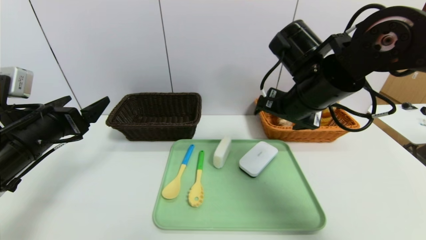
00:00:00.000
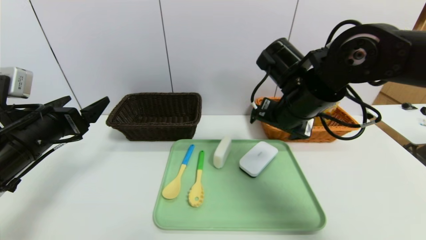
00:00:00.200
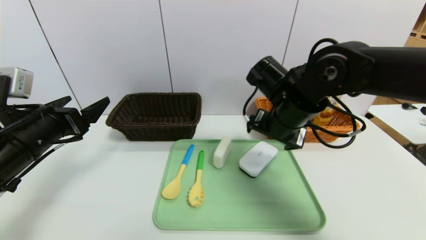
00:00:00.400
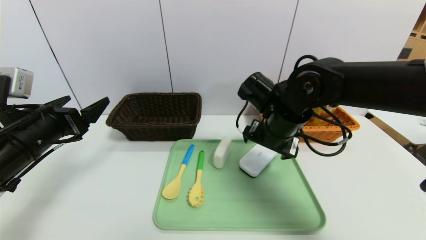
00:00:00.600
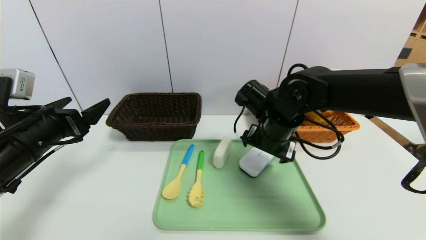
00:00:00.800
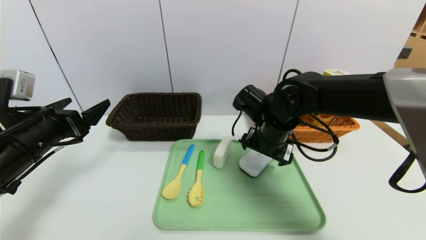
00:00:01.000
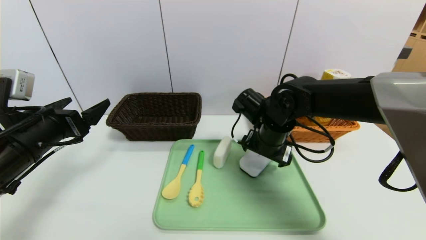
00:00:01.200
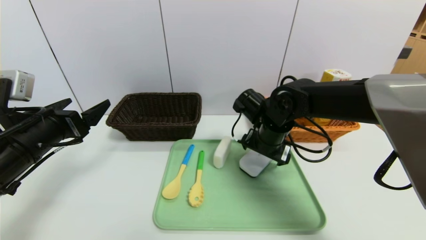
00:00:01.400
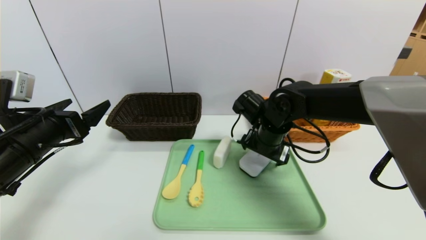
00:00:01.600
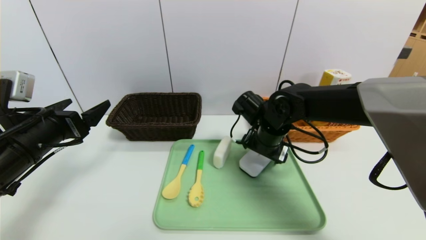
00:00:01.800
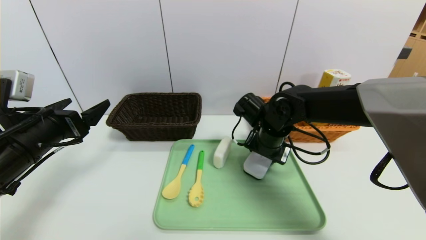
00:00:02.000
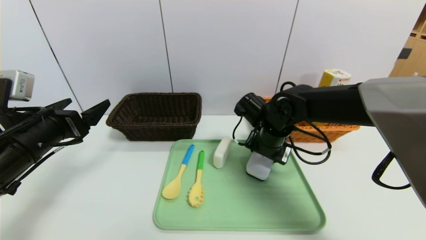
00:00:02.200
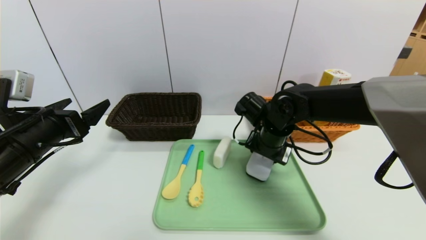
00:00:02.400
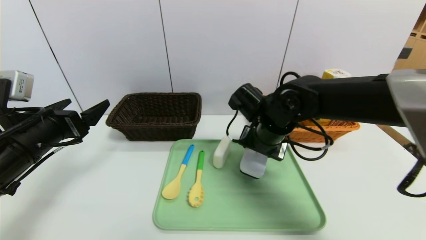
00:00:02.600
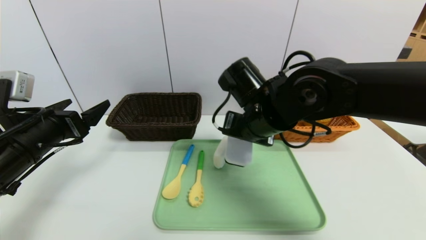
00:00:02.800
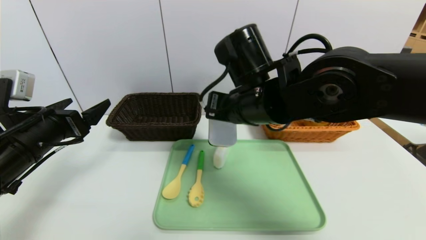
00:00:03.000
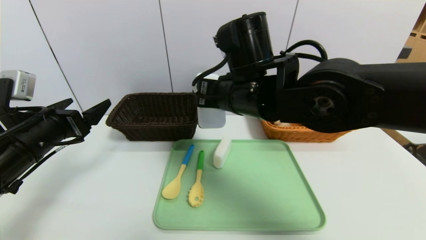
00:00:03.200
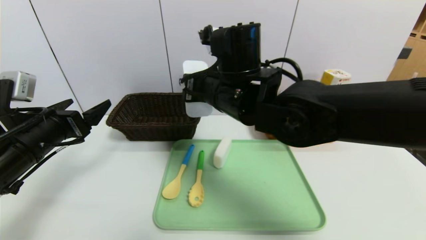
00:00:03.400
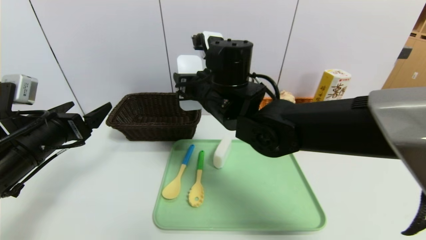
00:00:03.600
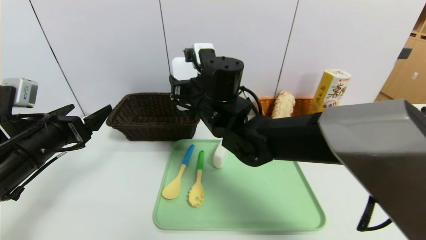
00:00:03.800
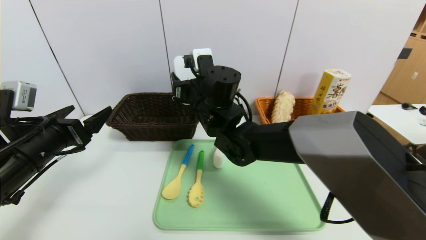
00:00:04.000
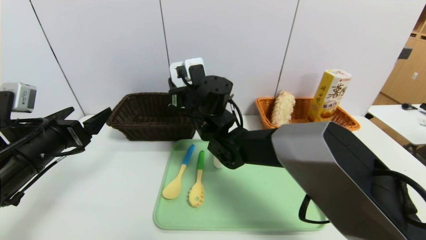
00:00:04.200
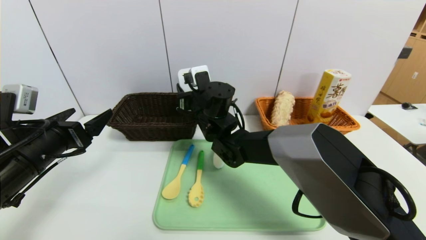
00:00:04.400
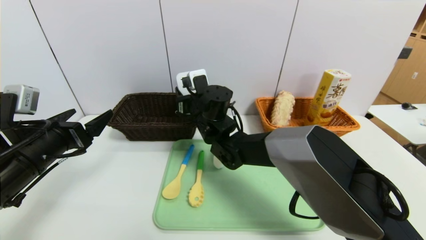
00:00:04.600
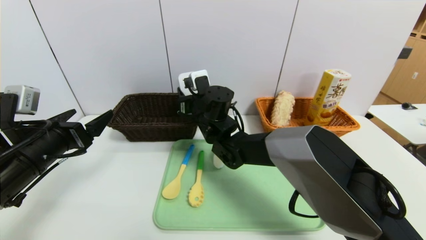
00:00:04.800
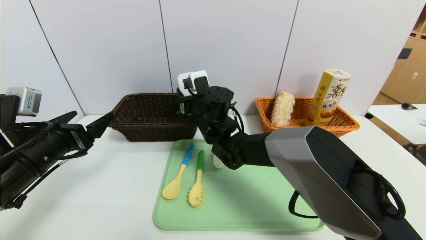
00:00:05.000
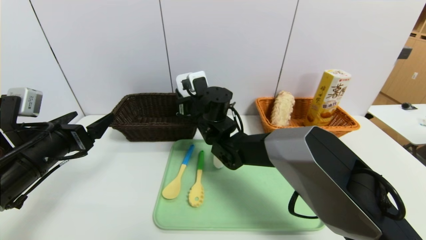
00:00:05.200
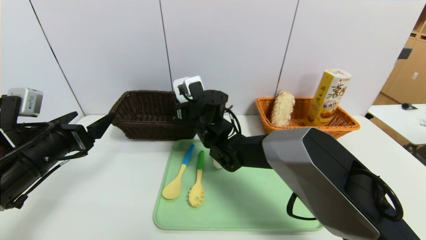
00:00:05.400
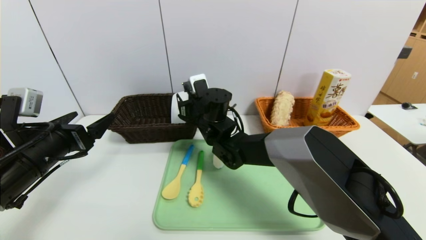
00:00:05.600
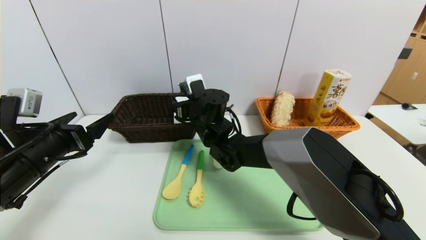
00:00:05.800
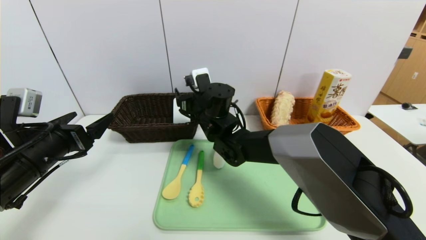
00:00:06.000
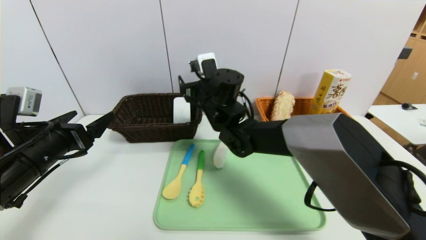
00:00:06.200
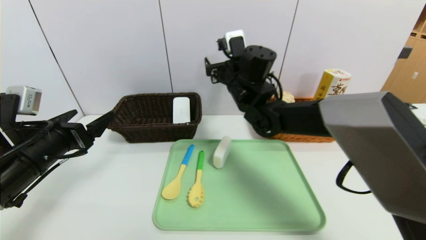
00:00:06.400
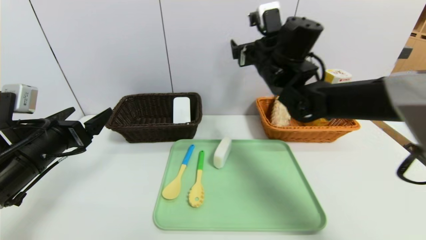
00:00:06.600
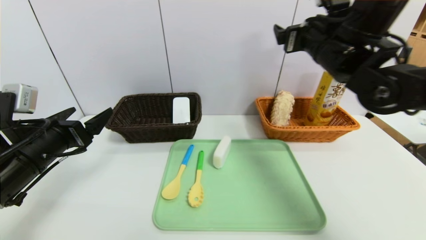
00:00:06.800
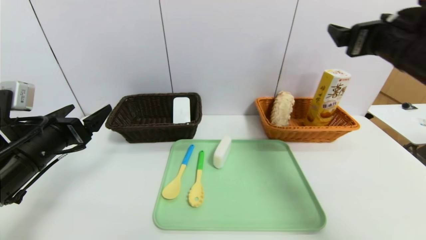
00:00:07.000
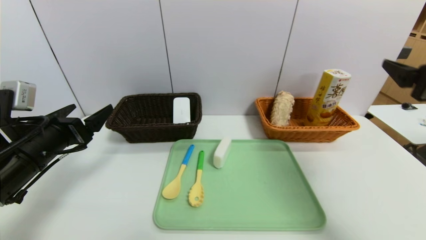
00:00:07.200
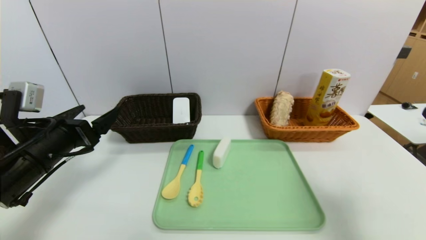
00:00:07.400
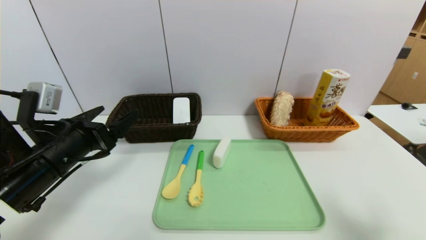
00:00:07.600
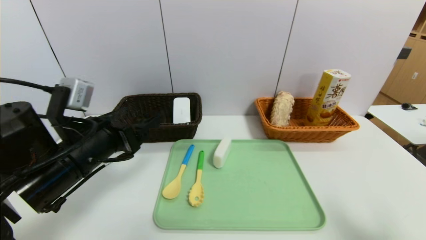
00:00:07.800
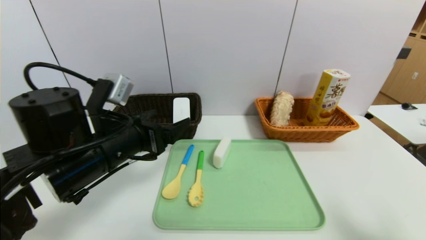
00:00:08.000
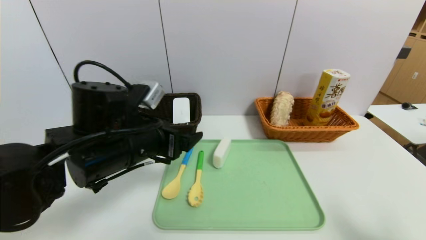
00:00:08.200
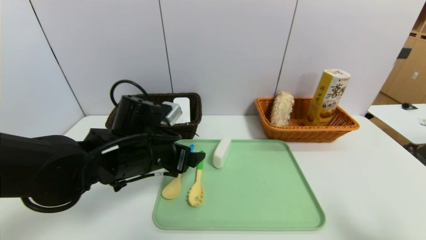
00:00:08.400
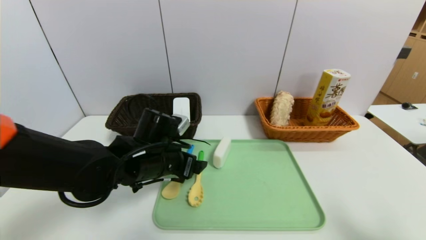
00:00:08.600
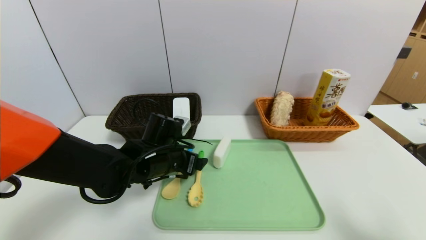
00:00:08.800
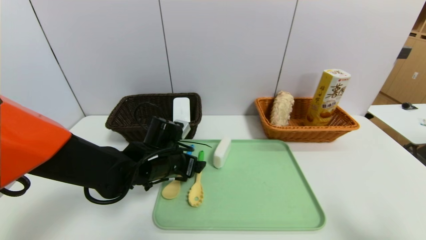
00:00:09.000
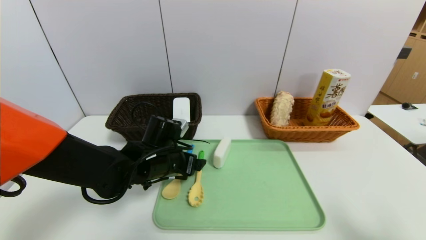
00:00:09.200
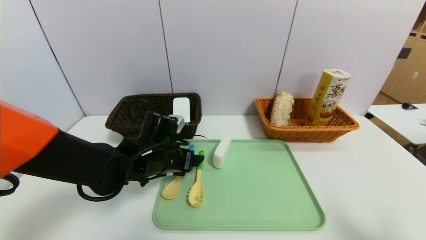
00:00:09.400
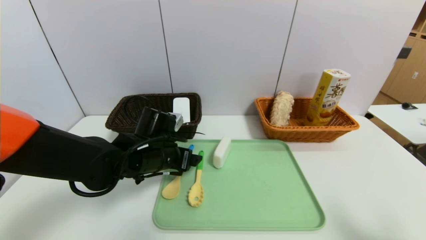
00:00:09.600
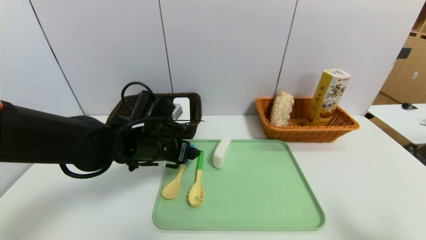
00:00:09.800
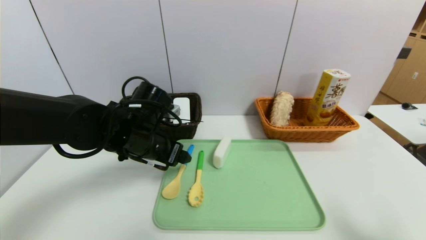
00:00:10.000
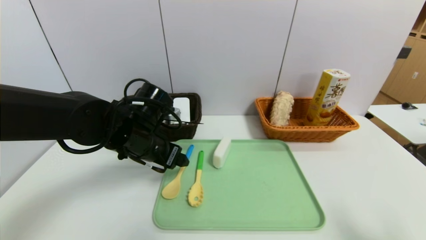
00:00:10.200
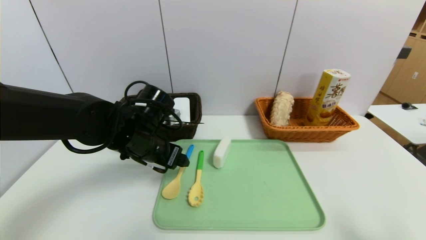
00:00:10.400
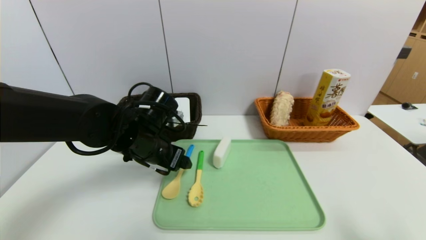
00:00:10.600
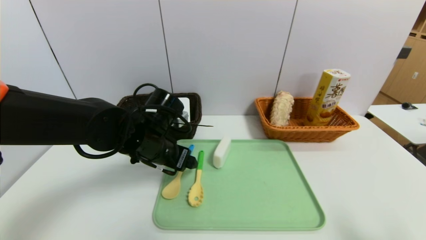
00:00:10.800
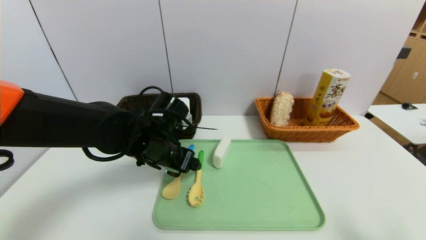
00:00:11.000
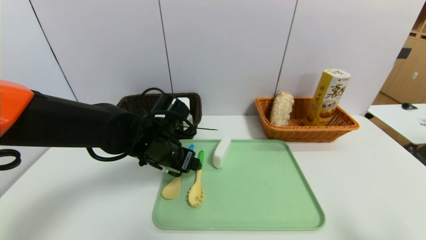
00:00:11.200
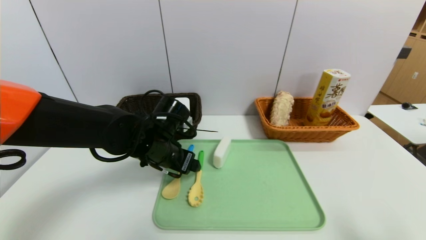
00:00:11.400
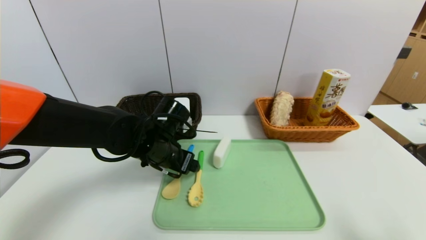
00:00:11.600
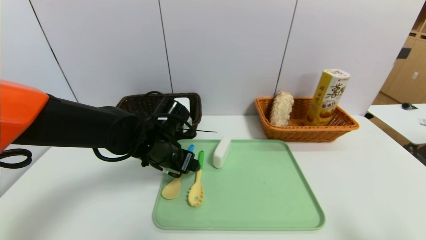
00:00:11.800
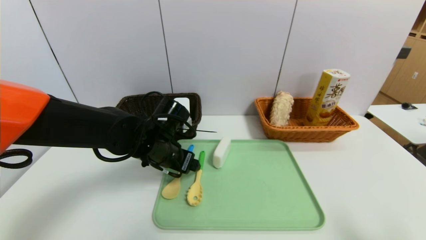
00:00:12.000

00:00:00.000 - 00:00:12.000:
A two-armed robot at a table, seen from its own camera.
Task of the whole recording: place the food in the right basket with the right gripper, and place the non food items in the left basket with the left gripper.
00:00:00.000 - 00:00:01.600: The right gripper shifts about 15 cm downward and forward.
00:00:01.600 - 00:00:03.000: The right gripper moves upward, backward and to the left, some 15 cm, and closes.
00:00:03.000 - 00:00:04.400: The right gripper moves forward, downward and to the left, some 15 cm.
00:00:04.400 - 00:00:06.000: There are only small adjustments of the grippers.
00:00:06.000 - 00:00:07.600: The left gripper heads to the right, covering roughly 5 cm; the right gripper travels to the right and backward by roughly 50 cm.
00:00:07.600 - 00:00:09.000: The left gripper travels to the right, forward and downward by some 15 cm.
00:00:09.000 - 00:00:10.400: The left gripper heads upward, covering approximately 5 cm.
00:00:10.400 - 00:00:12.000: The grippers move only a little.

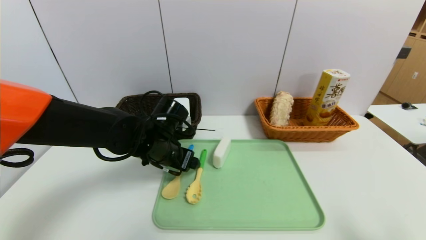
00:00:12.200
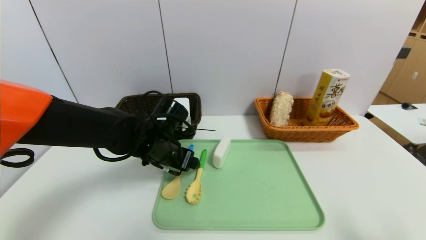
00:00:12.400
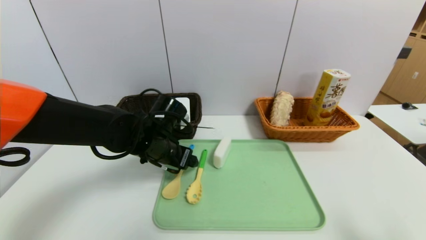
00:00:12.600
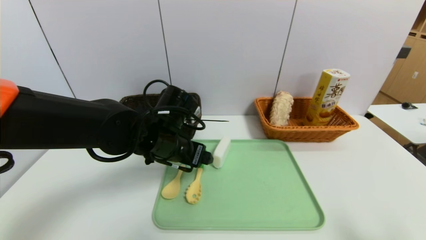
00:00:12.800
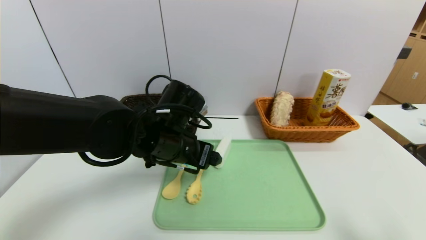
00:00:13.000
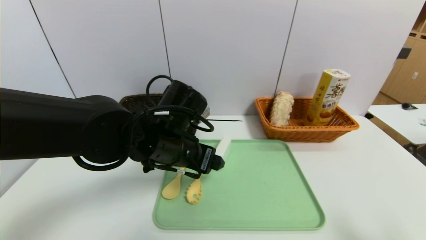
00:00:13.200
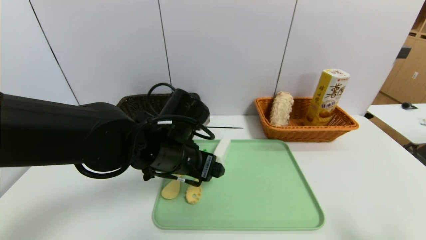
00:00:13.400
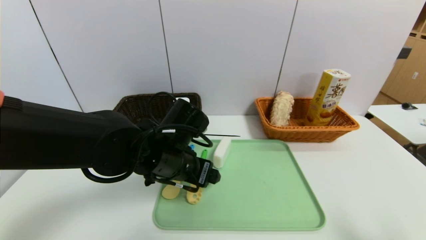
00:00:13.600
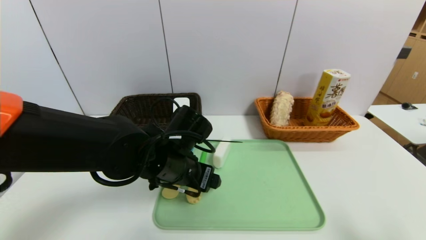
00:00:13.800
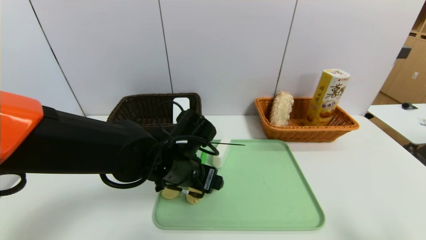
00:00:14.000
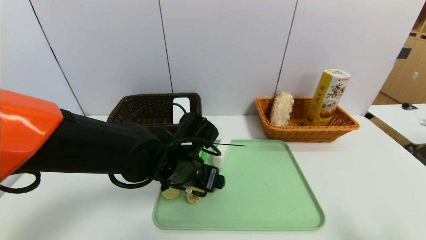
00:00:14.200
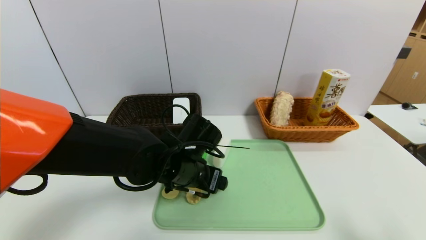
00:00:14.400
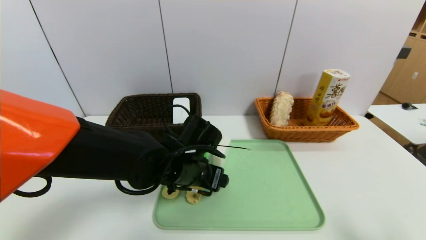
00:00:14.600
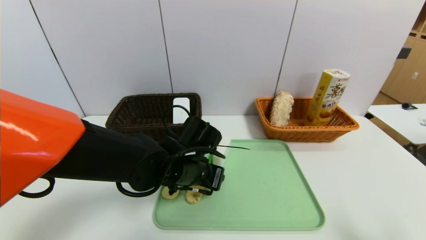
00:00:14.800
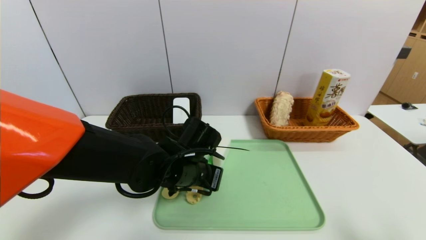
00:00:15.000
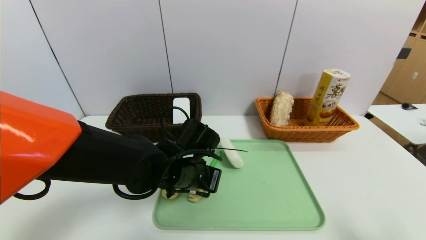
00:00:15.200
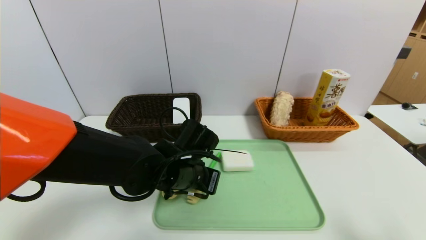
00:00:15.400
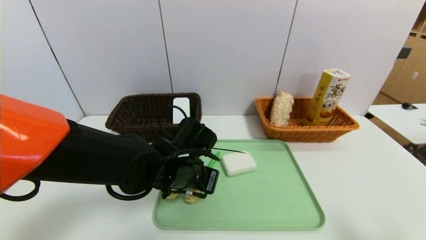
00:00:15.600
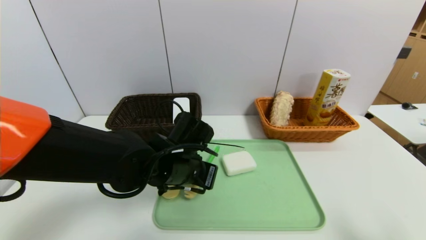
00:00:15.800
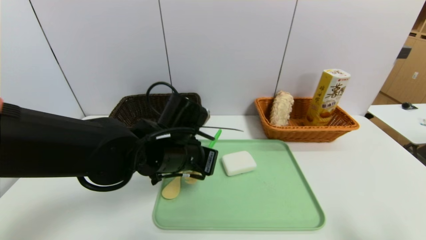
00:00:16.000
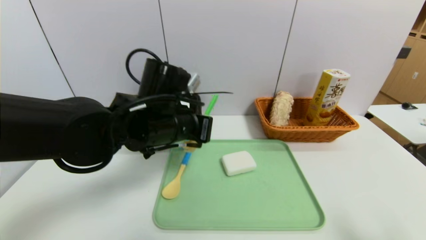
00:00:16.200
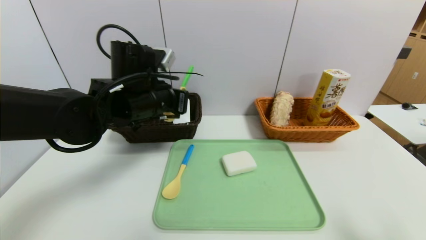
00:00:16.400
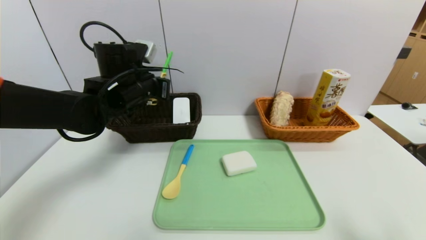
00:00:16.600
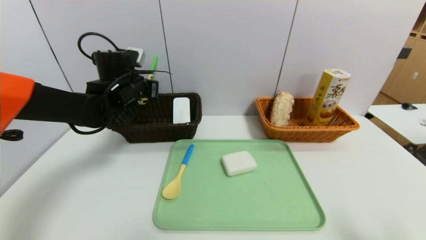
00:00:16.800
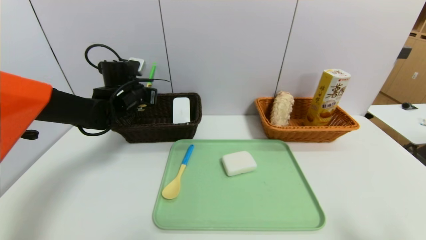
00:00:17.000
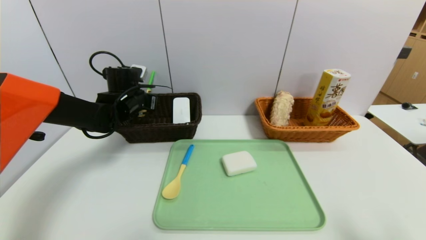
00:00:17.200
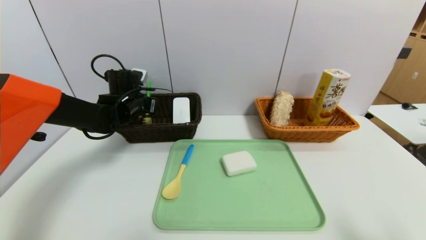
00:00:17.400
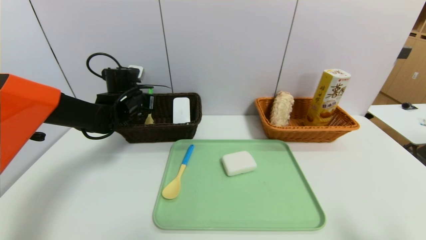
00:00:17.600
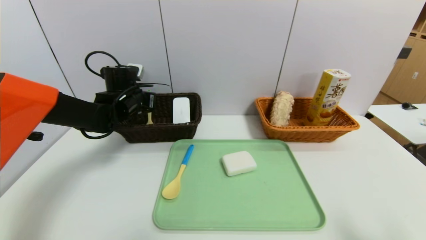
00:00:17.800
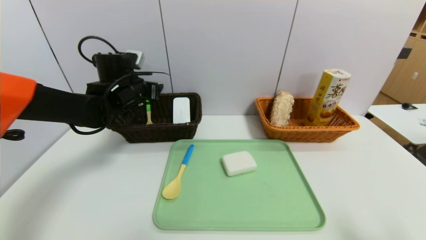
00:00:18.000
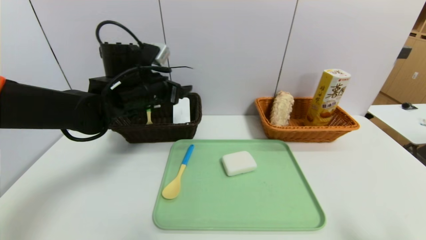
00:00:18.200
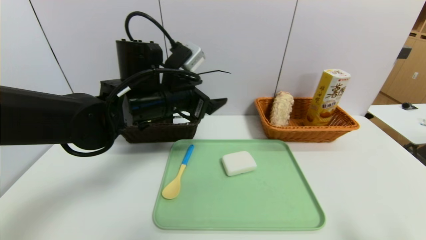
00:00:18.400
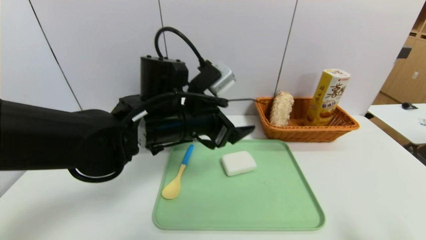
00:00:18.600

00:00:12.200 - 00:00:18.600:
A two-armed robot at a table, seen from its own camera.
Task of the whole recording: place the food in the right basket with the right gripper, and place the non food items in the left basket with the left gripper.
Step, 00:00:12.200 - 00:00:18.000: Grasp the spoon and put it in the left basket.
00:00:12.200 - 00:00:13.800: The left gripper shifts roughly 5 cm backward.
00:00:13.800 - 00:00:15.400: The left gripper closes.
00:00:15.400 - 00:00:17.000: The left gripper heads forward, to the left and upward, covering roughly 25 cm.
00:00:17.000 - 00:00:18.600: The left gripper heads backward and to the right, covering roughly 25 cm, and opens up.
